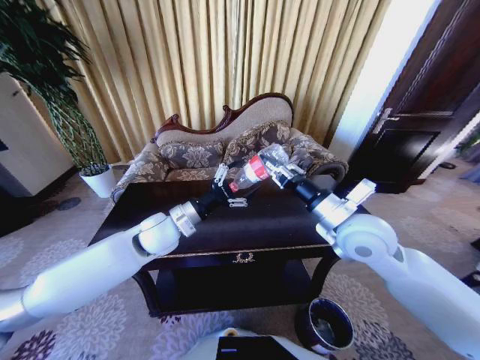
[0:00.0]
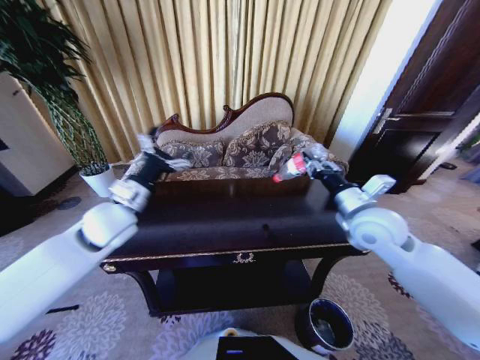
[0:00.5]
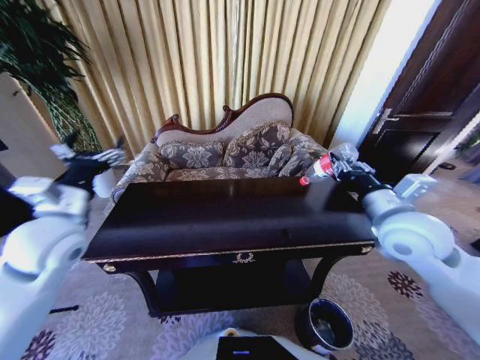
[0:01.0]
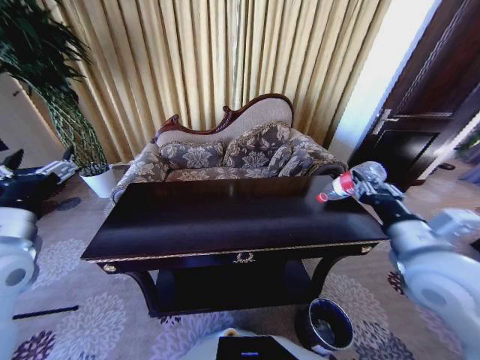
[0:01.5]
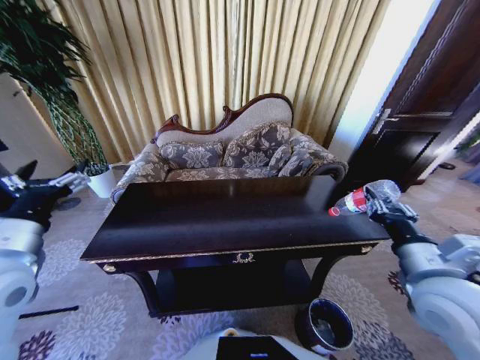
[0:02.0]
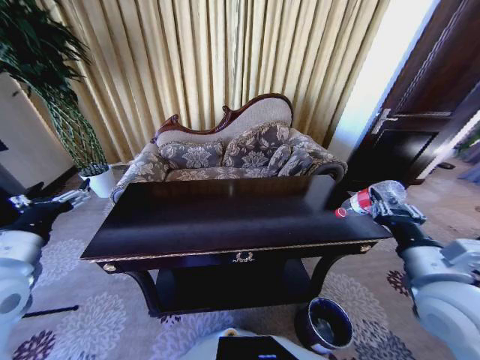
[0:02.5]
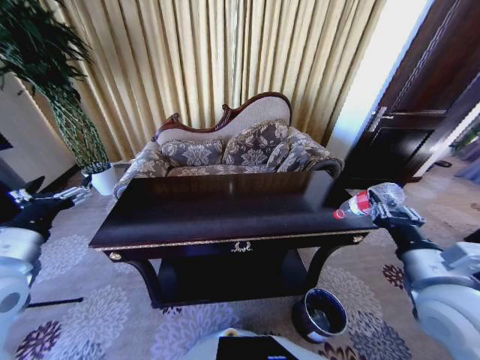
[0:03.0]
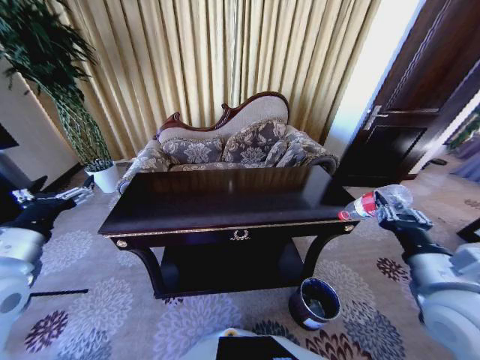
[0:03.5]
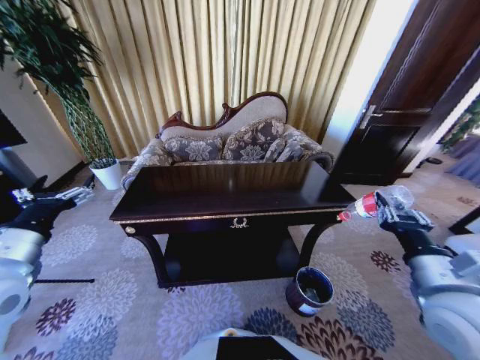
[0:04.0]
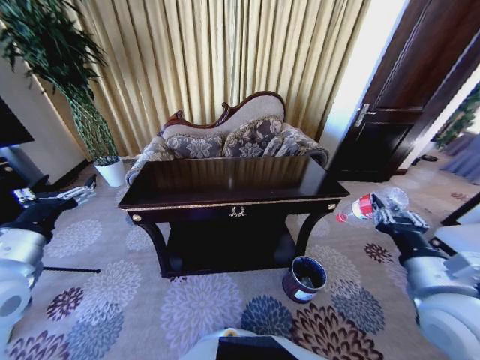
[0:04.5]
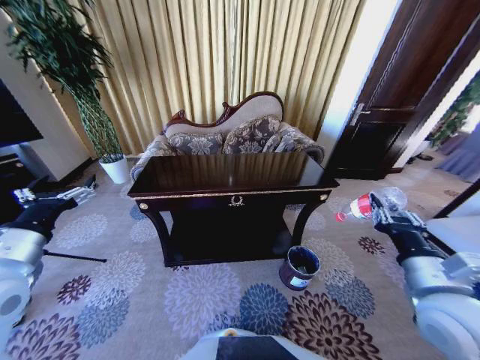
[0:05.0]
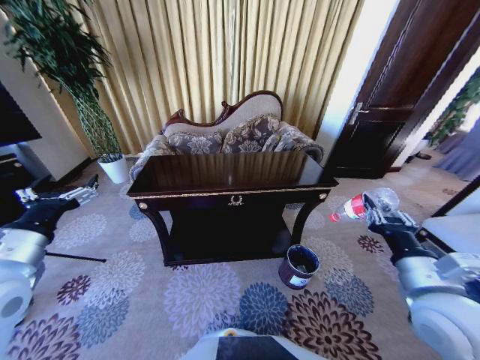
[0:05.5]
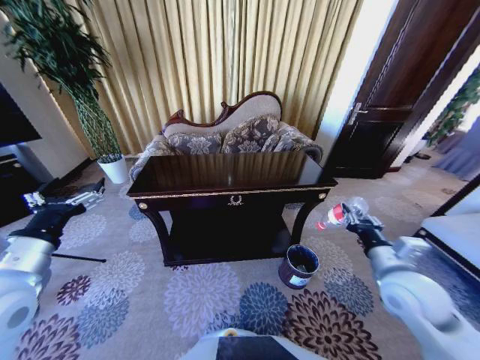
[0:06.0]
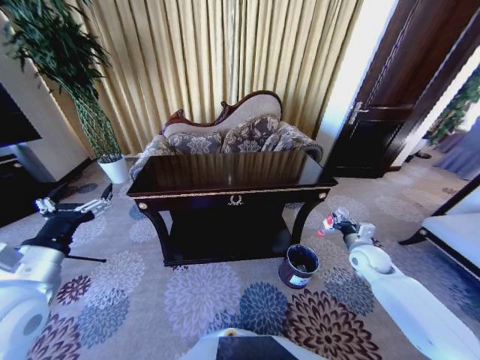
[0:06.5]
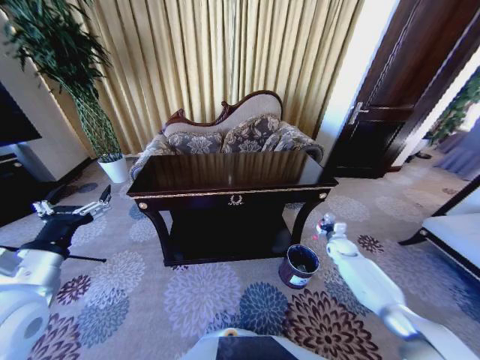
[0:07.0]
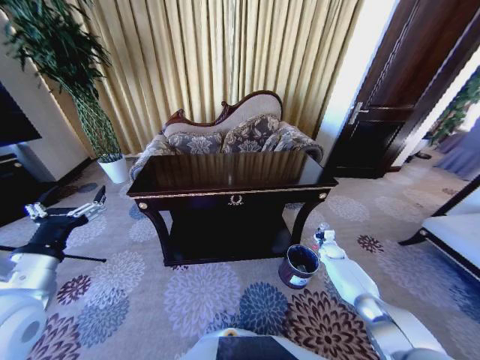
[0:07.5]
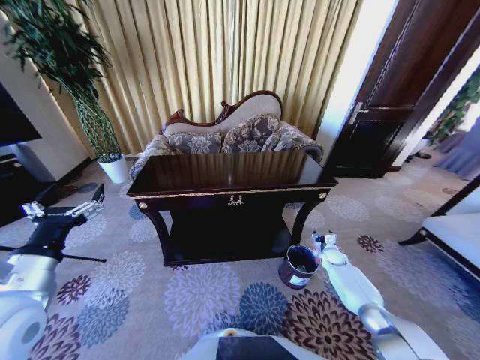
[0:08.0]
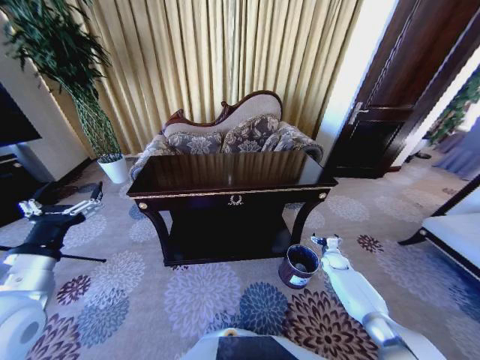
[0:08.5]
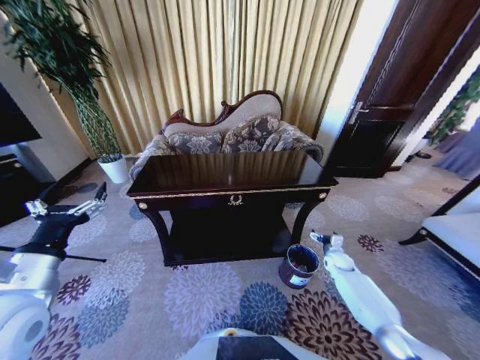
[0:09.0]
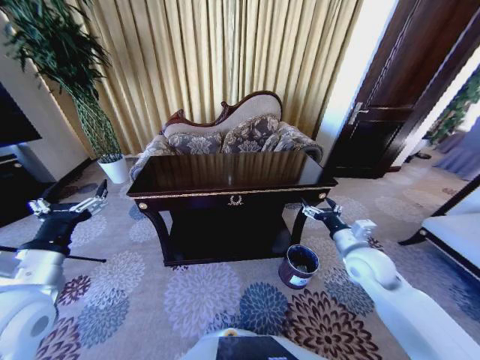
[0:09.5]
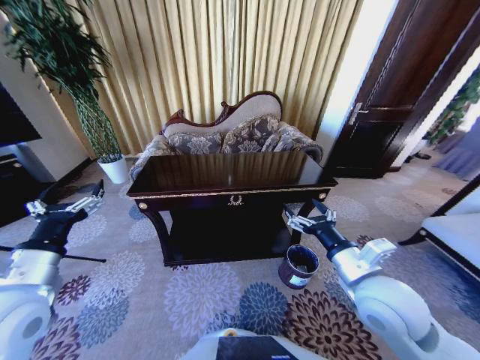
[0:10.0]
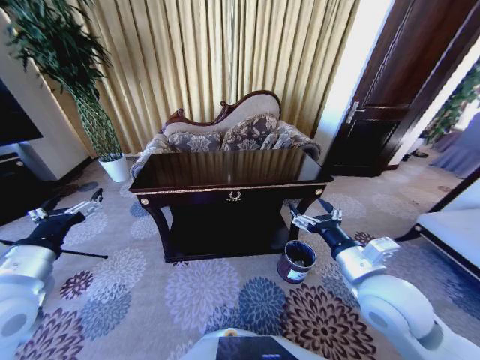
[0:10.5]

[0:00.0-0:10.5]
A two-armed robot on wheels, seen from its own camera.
Task of the whole recording: Move to the front of the table and place the trash on the table into the trash bin.
0:00.0 to 0:02.0: The left gripper is displaced to the left, backward and upward by some 25 cm; the right gripper moves backward and to the right, approximately 15 cm.
0:04.0 to 0:06.5: The right gripper heads forward, downward and to the right, covering roughly 25 cm.
0:06.5 to 0:08.5: The right gripper travels downward by some 20 cm, and opens.
0:08.5 to 0:10.5: The right gripper goes approximately 40 cm upward, backward and to the left.
